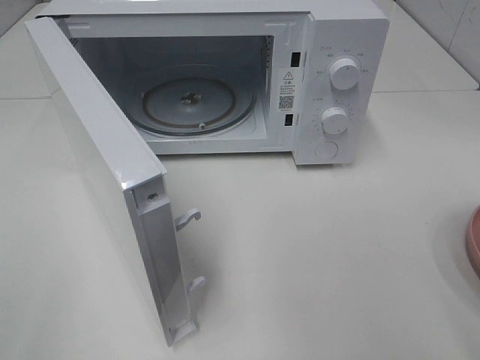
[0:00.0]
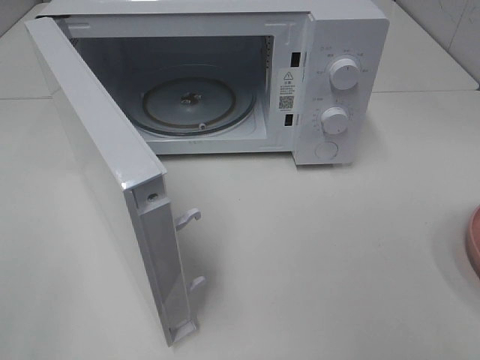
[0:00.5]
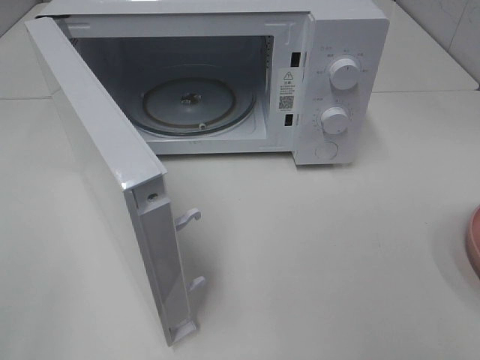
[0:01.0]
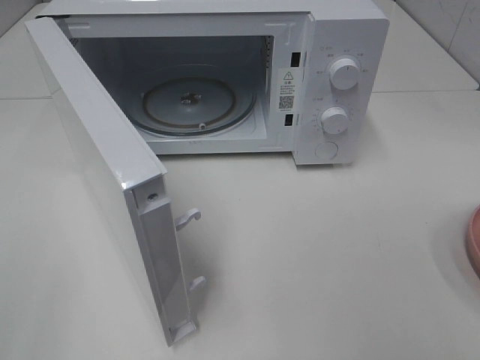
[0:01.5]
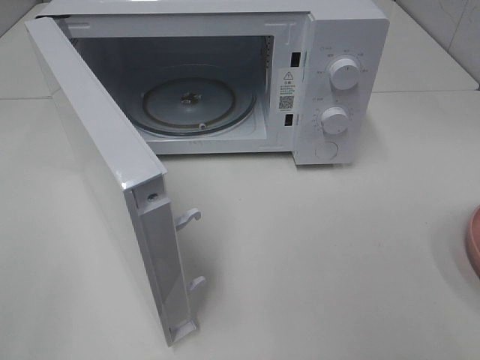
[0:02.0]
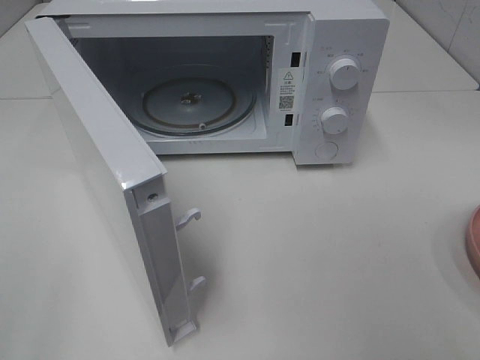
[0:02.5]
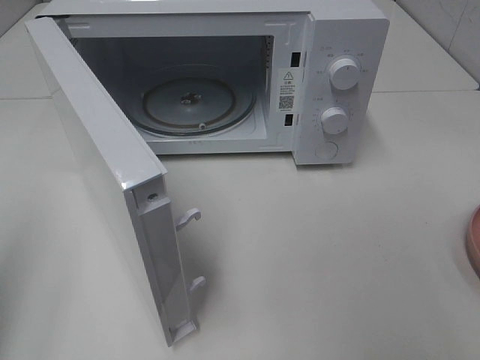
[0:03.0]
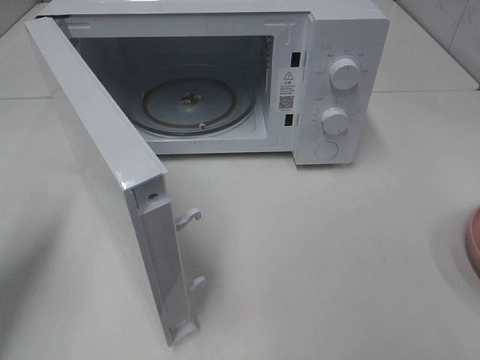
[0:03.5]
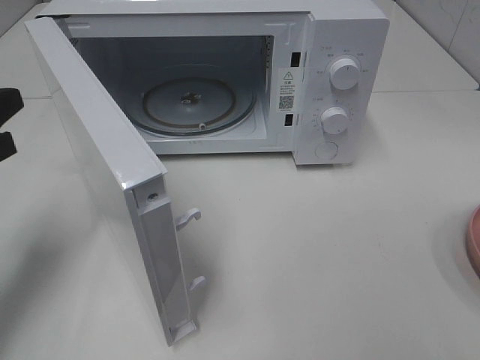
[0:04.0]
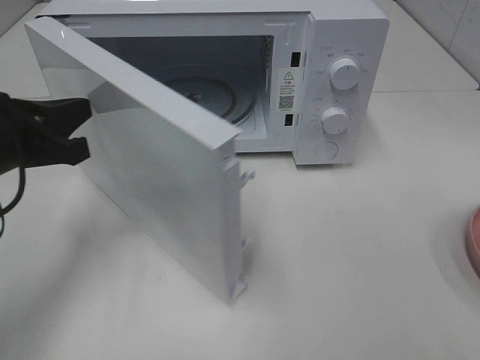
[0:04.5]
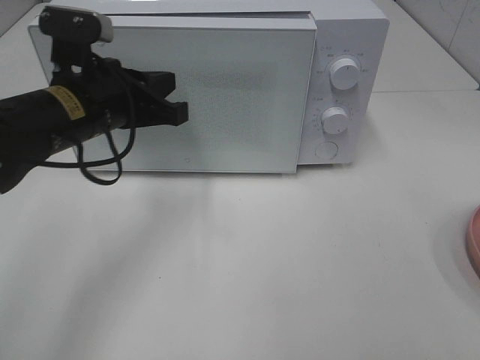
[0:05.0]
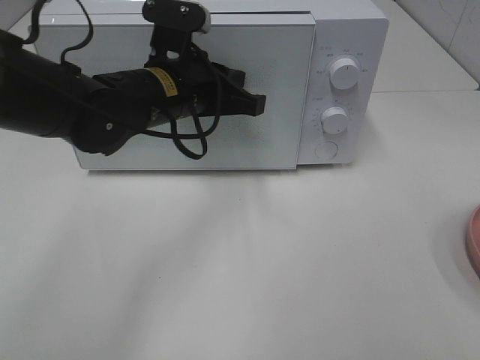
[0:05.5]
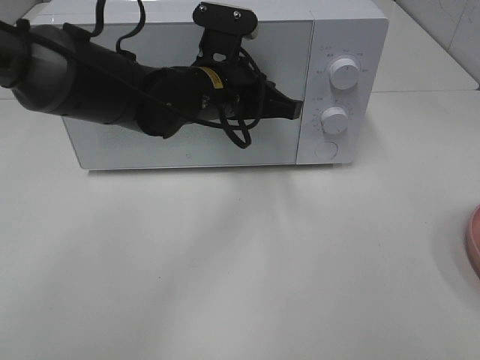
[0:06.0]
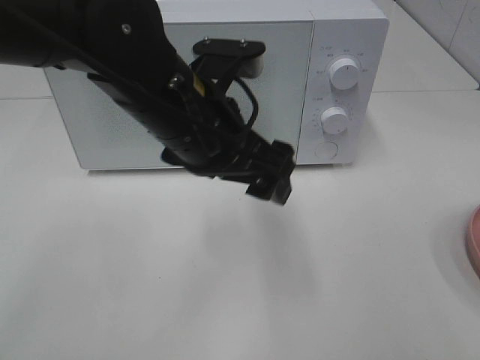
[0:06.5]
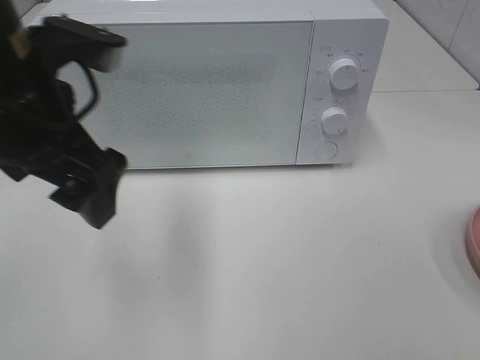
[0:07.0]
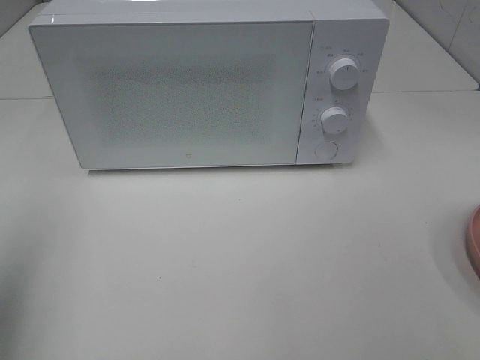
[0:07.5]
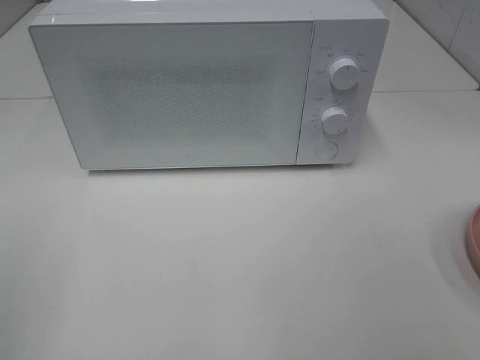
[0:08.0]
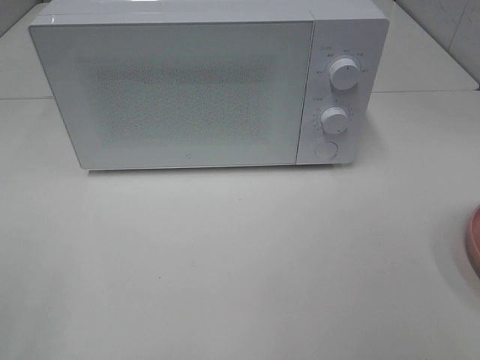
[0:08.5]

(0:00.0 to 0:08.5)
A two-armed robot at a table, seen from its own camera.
Task of the whole recording: Heat the burger.
Step, 0:00.0 - 0:06.0: Left hand: close the microwave door.
0:02.0 - 0:04.0: The left gripper moves forward, some 25 cm, and closes up.
0:04.0 - 0:06.5: The left gripper travels to the right by about 25 cm, and opens up.
0:06.5 - 0:08.5: The left gripper heads to the left and backward, covering some 40 cm.

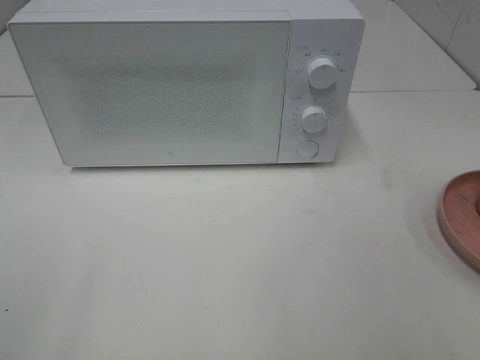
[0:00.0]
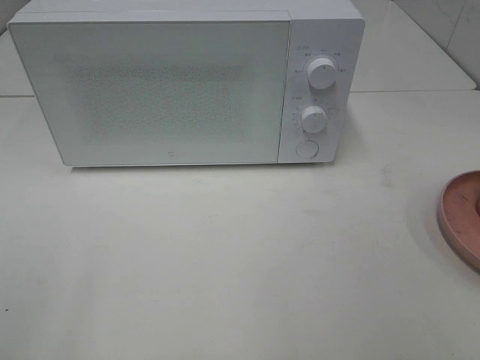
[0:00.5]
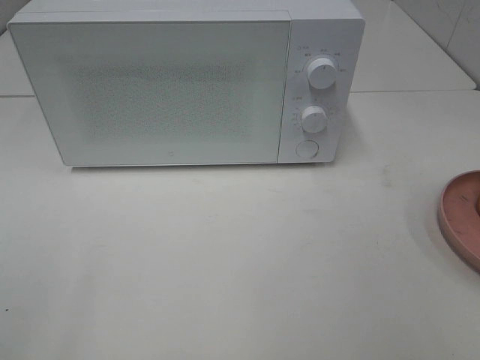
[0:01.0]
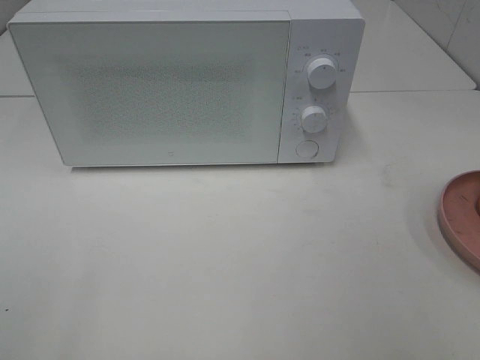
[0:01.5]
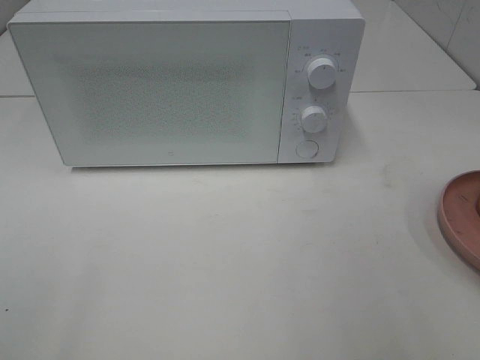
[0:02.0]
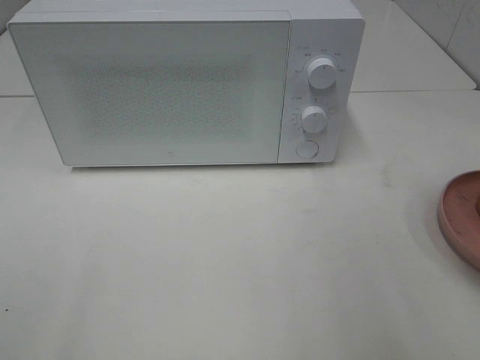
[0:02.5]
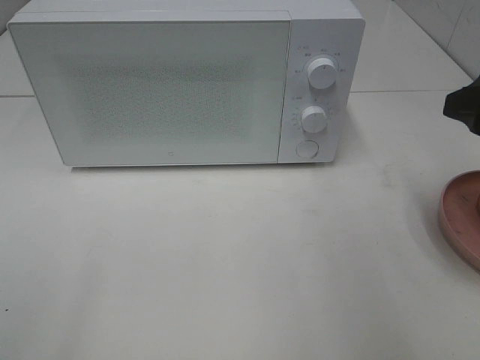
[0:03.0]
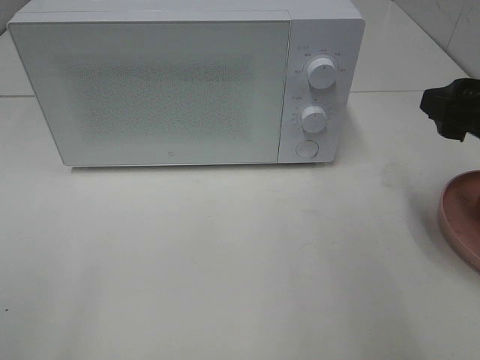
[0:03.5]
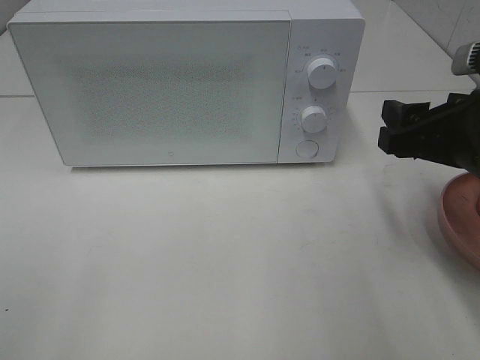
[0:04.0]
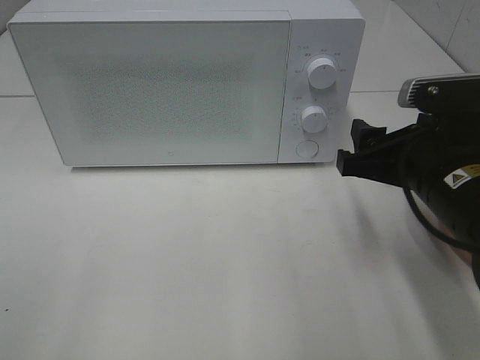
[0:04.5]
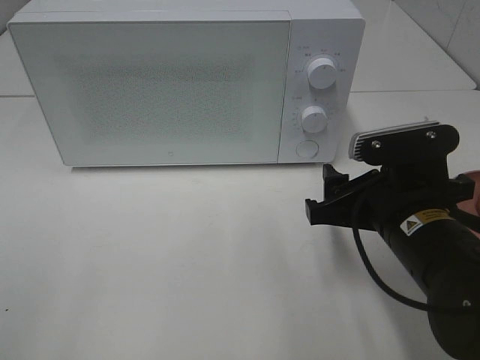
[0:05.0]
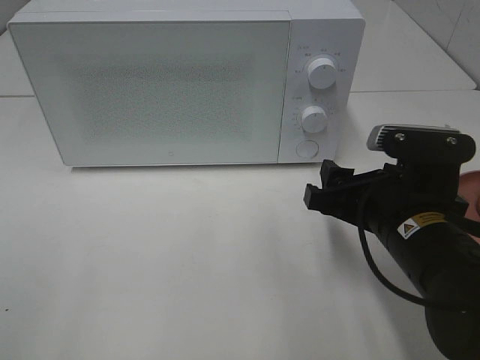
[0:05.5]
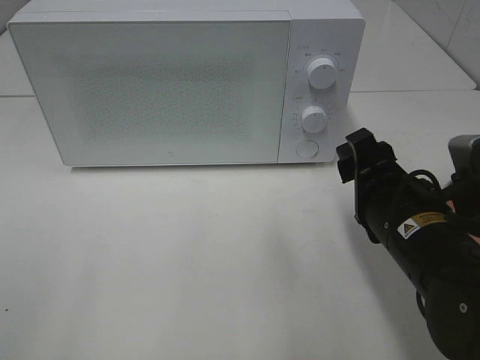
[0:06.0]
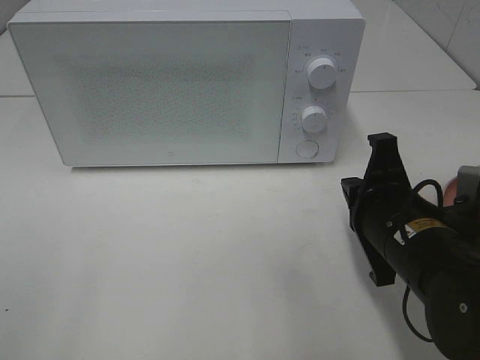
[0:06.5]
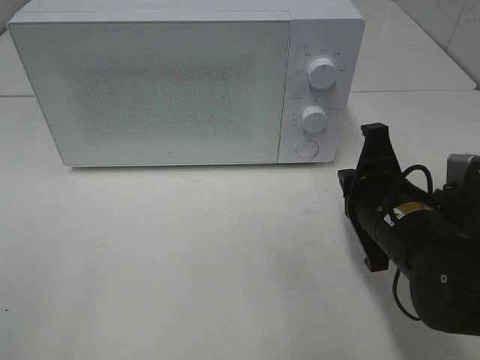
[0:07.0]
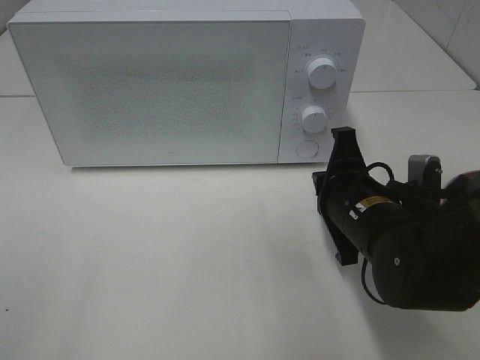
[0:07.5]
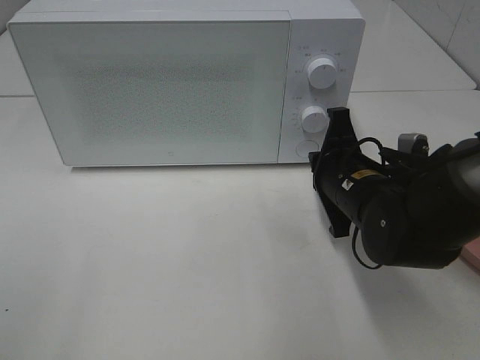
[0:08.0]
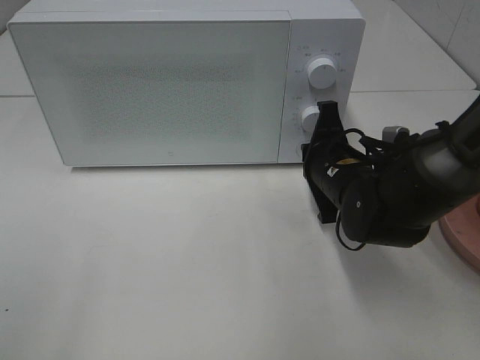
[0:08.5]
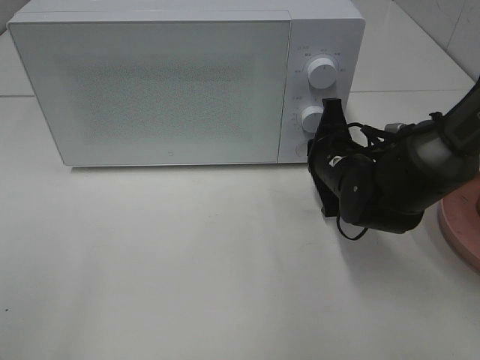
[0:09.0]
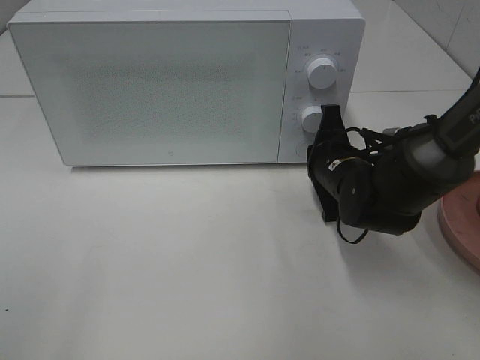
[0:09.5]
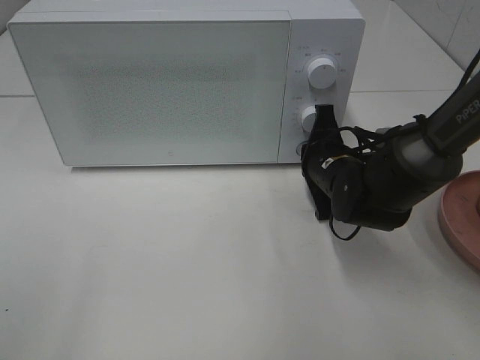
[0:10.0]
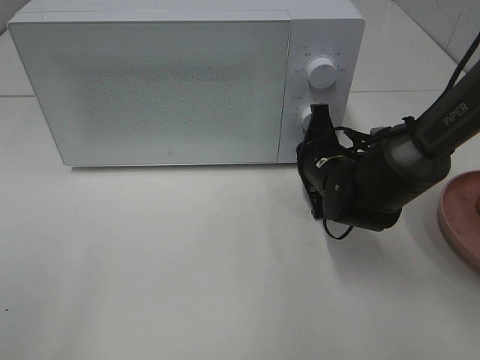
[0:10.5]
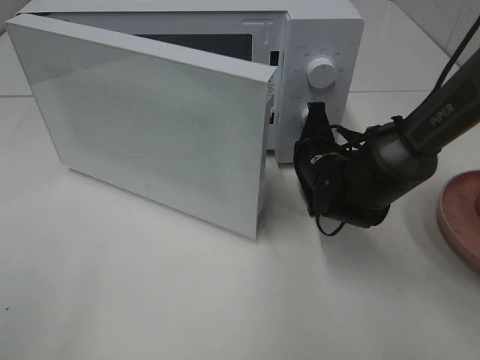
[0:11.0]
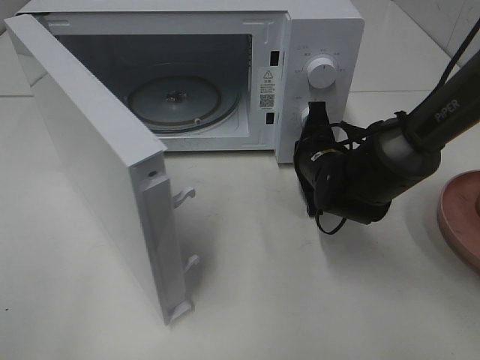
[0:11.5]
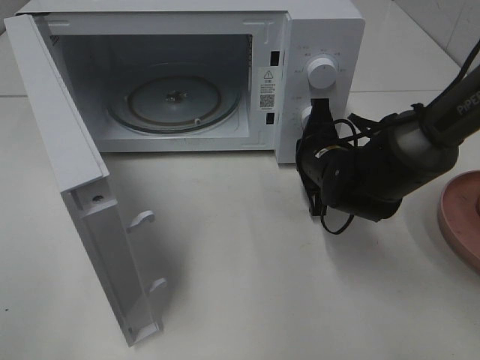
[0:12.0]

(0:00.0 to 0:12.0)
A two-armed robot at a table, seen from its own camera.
Task of the whole recording: Heat the burger.
0:02.0 - 0:04.0: The right gripper moves forward, downward and to the left, approximately 15 cm.
0:04.0 - 0:06.0: The right gripper is displaced to the left and downward by about 10 cm.
0:06.0 - 0:08.0: The right gripper is displaced forward by roughly 10 cm, and closes.
0:08.0 - 0:10.0: The right gripper is displaced forward by approximately 5 cm.

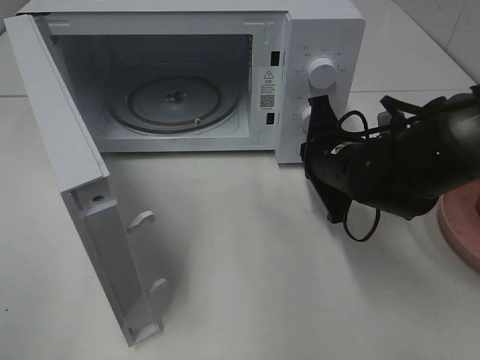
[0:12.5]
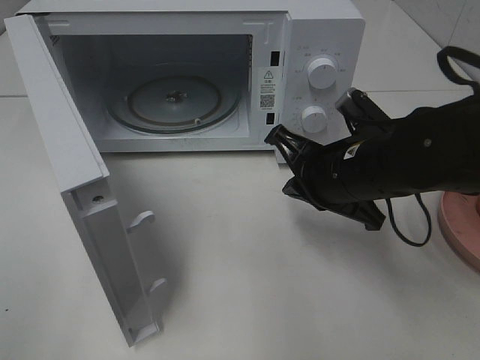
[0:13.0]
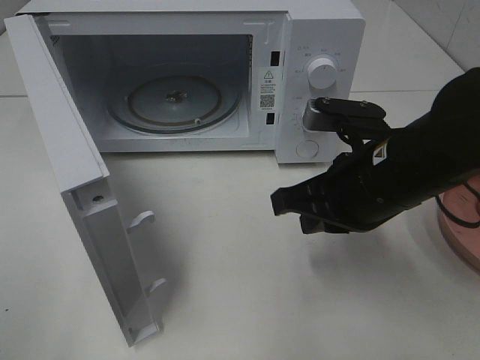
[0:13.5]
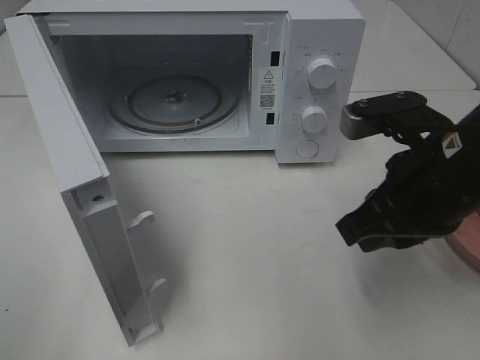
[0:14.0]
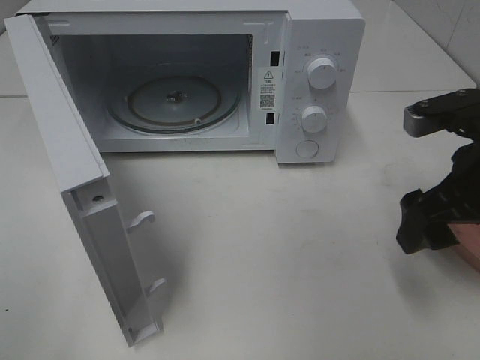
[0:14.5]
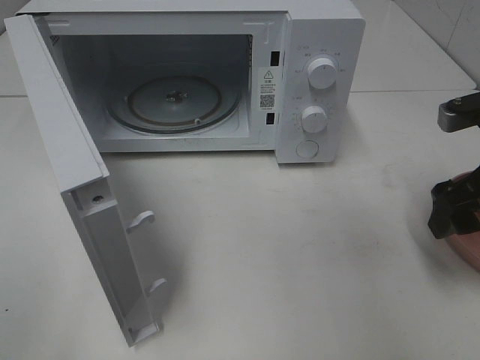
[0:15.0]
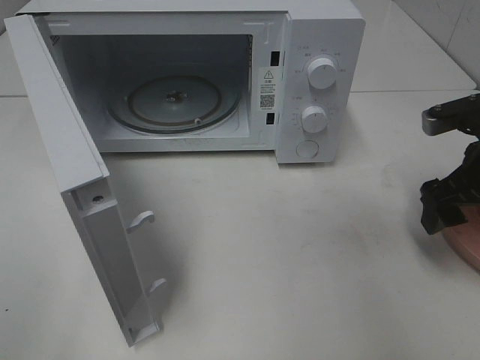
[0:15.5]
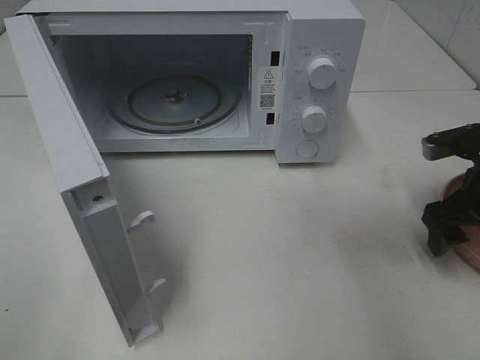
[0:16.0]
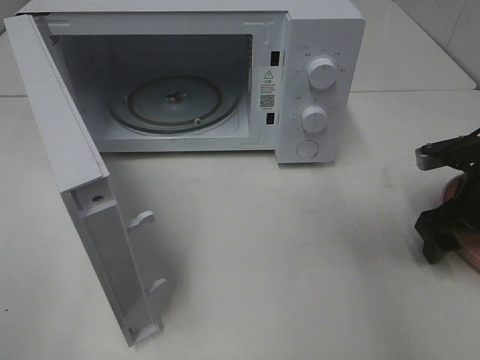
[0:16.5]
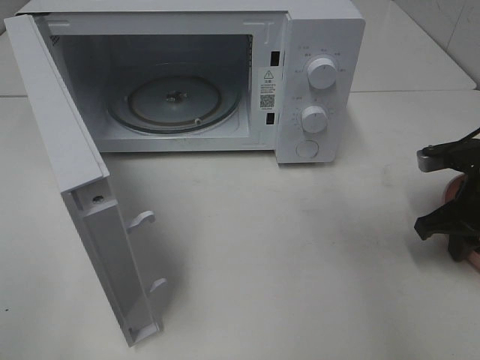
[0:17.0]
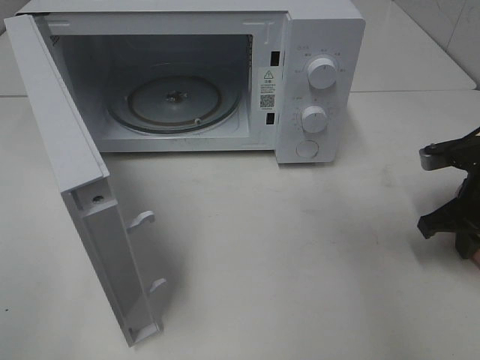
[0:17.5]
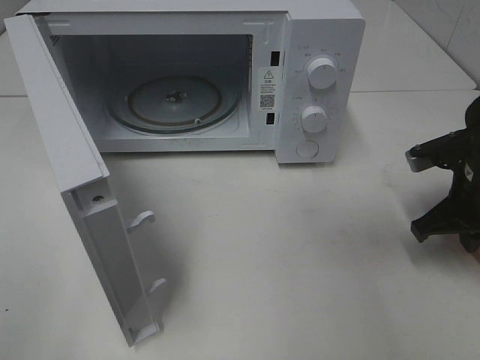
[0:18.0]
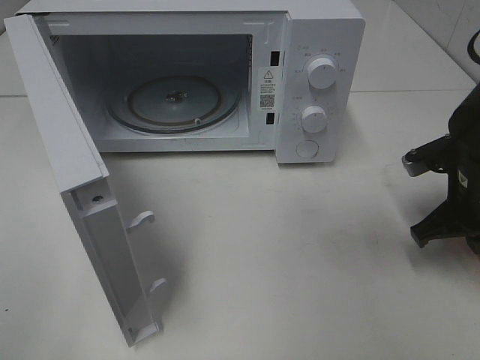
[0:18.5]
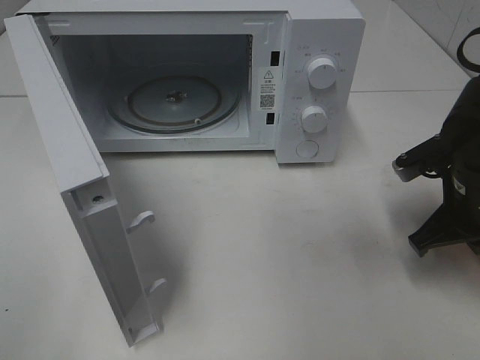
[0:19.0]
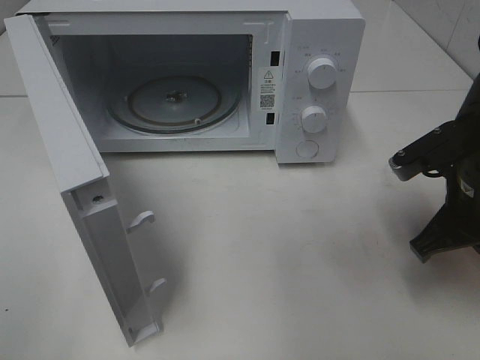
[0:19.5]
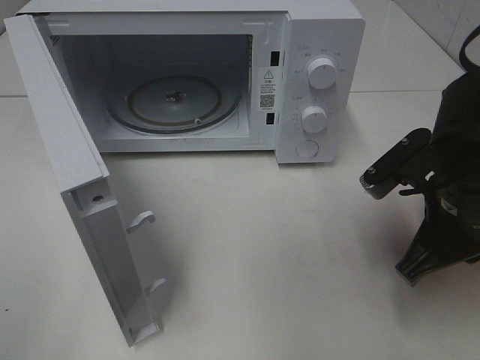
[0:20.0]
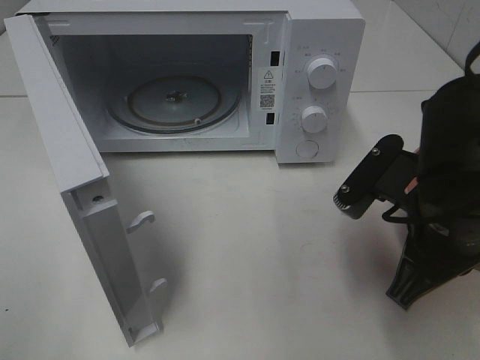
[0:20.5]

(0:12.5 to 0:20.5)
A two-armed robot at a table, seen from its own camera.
Task of the whole recording: Heat the burger.
Step, 0:12.5 - 0:17.5: Right hand: grab the plate with the hamburger.
0:12.5 - 0:14.5: The right gripper shifts about 15 cm to the right, upward and backward, and opens its fingers.
0:14.5 - 0:16.5: The right gripper travels downward, forward and to the right by some 15 cm.
0:16.5 - 0:18.5: The right gripper closes its fingers.
0:18.5 - 0:20.5: The right gripper is displaced to the left, backward and upward by about 15 cm.
